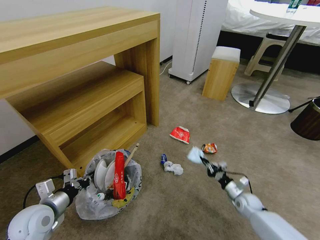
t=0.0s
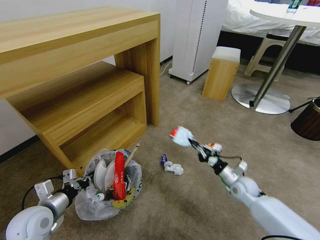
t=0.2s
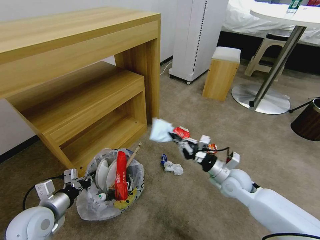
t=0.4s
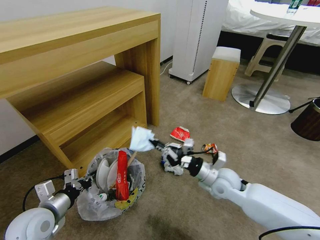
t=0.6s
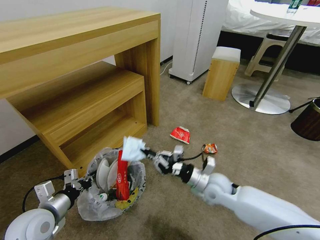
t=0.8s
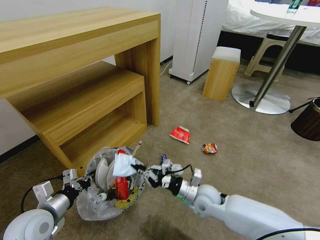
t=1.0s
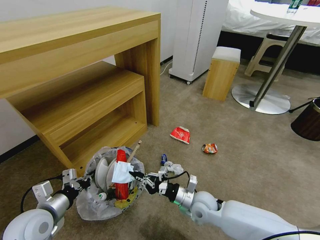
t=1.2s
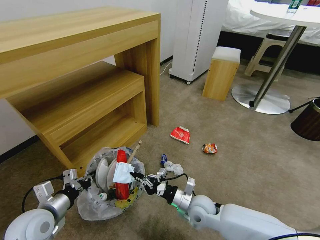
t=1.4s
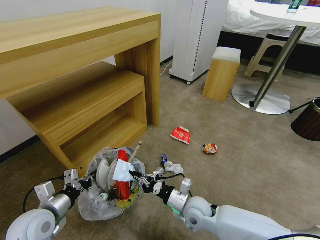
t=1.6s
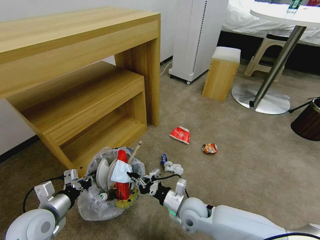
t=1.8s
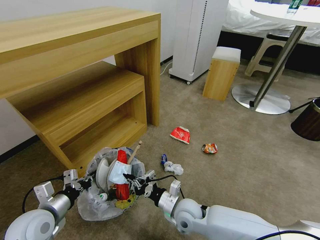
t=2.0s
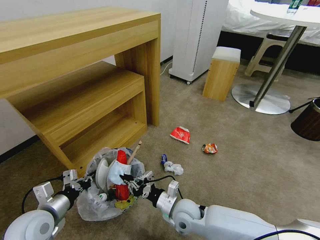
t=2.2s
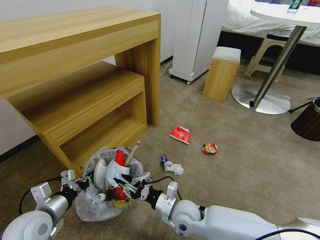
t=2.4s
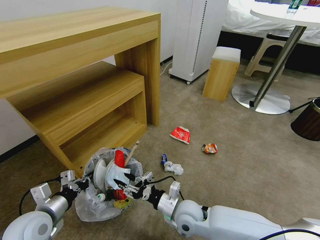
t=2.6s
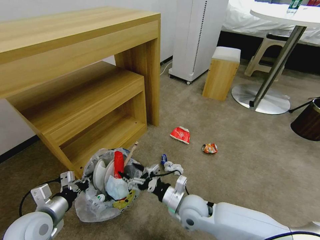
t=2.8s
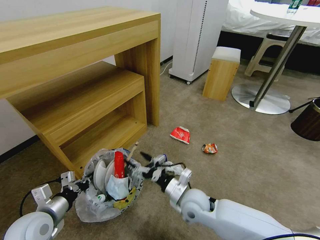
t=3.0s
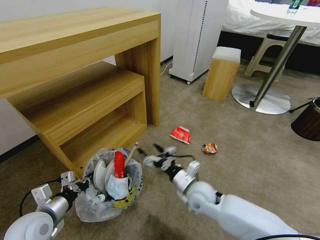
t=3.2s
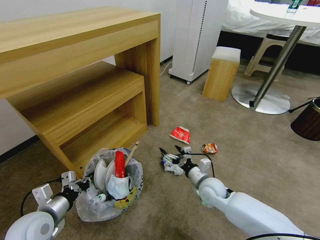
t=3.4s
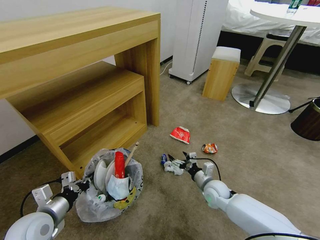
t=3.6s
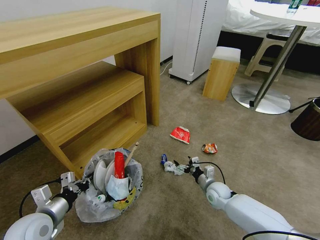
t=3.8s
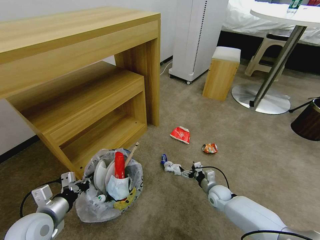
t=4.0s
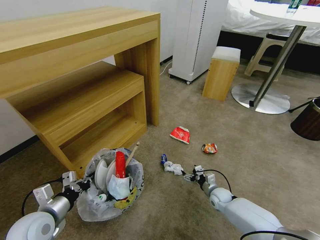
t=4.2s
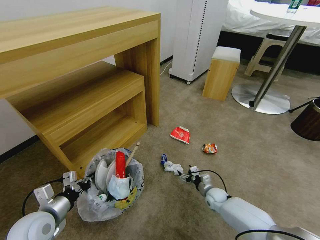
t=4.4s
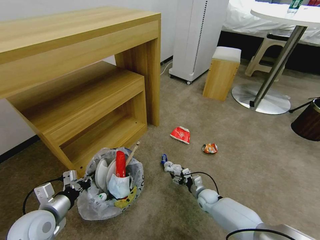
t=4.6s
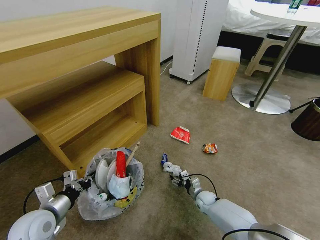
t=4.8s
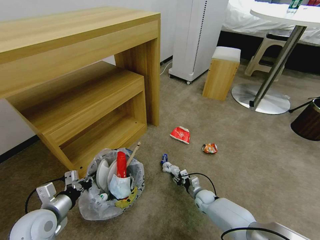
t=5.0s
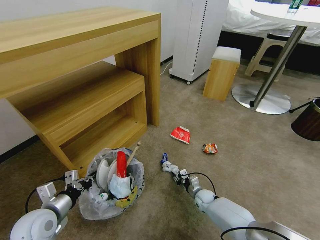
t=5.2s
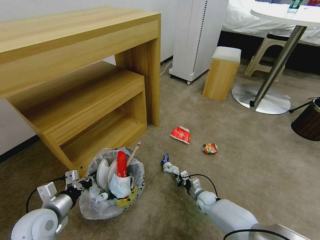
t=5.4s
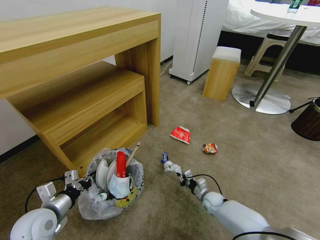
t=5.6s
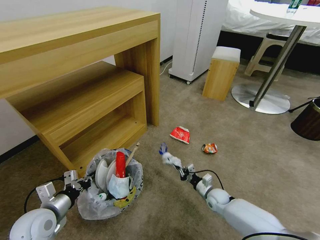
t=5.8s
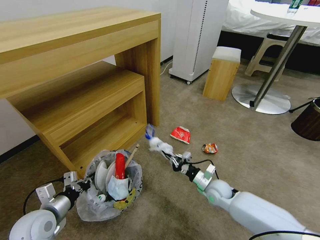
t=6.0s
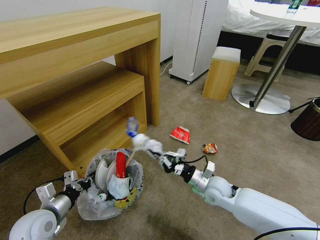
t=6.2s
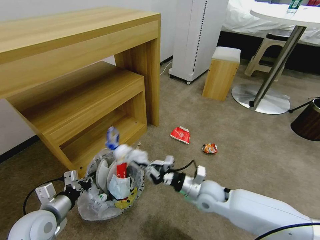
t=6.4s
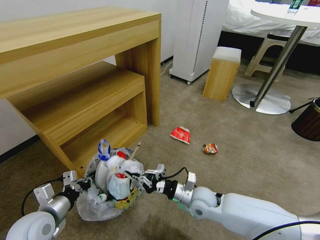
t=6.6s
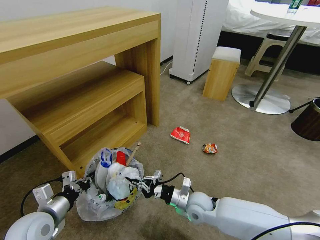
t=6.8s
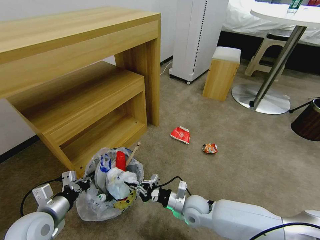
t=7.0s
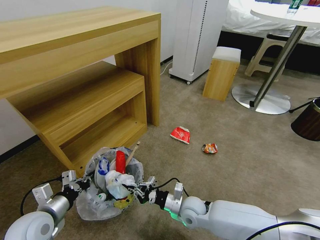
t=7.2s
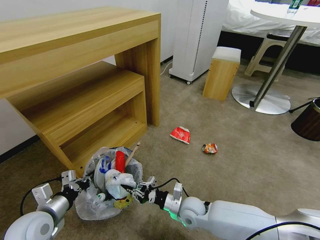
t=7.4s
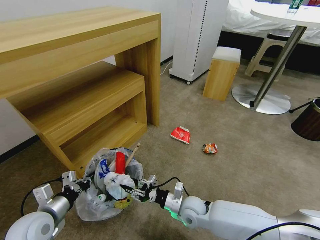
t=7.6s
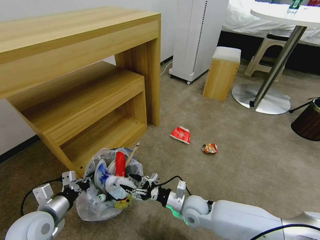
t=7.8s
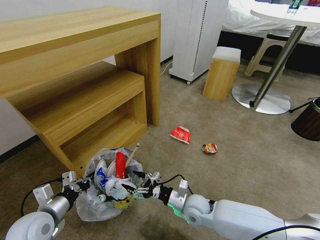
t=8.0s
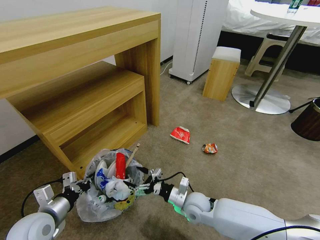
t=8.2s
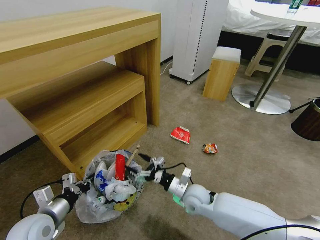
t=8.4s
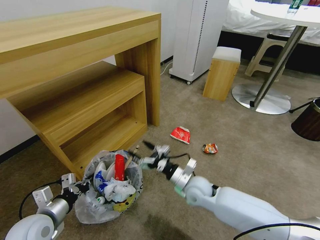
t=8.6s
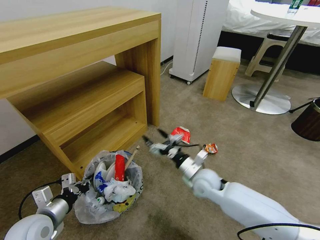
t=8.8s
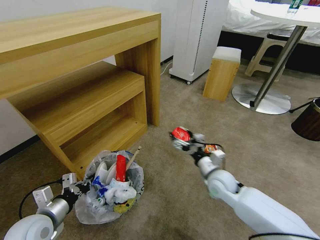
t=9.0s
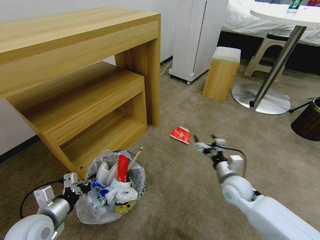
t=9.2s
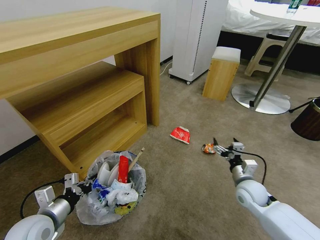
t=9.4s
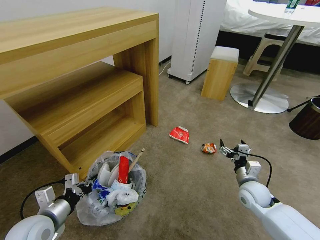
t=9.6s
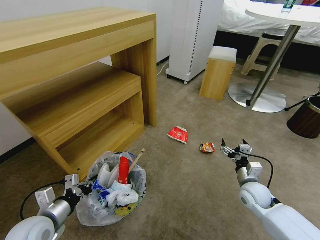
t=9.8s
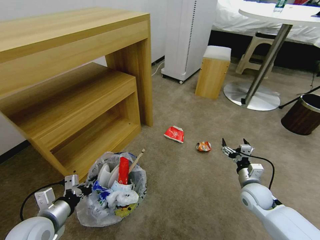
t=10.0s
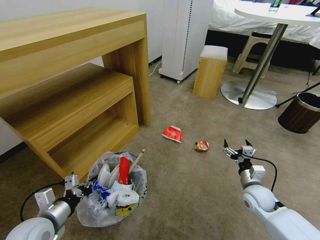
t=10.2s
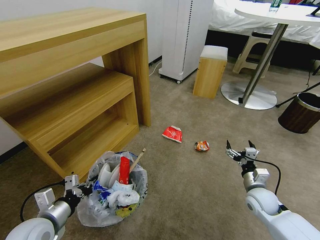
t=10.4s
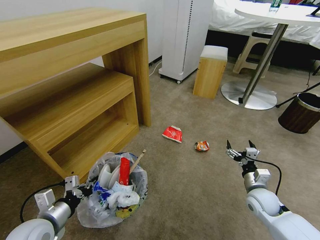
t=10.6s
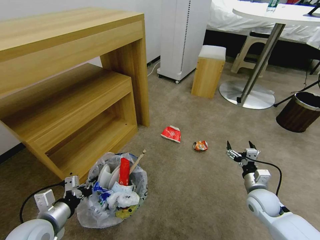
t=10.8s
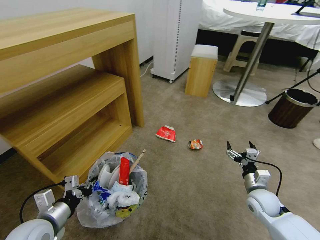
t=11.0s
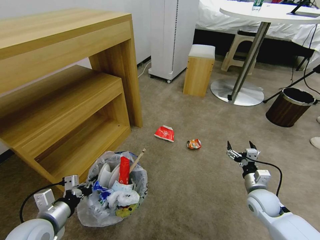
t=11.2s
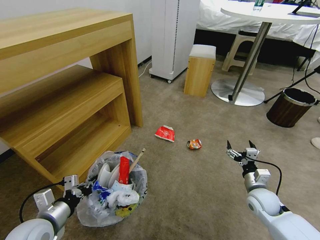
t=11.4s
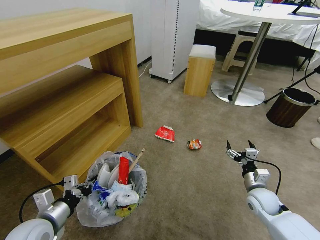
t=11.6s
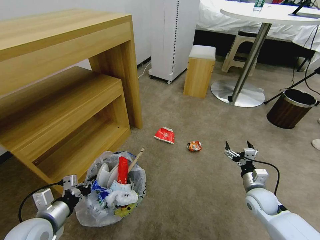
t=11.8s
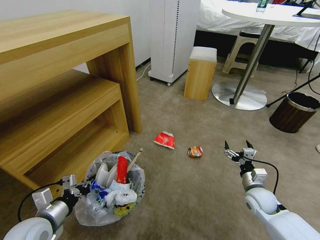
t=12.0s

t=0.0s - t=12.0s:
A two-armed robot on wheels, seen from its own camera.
Task of the whole recording: Pick up the trash bin and place the garbage on the floor into it.
t=0.0s - t=1.6s: The right gripper shifts about 25 cm to the left and upward.
t=1.6s - t=3.0s: The right gripper opens.
t=3.0s - t=4.4s: The right gripper goes approximately 25 cm downward, to the right and forward.
t=4.4s - t=6.0s: The right gripper shifts some 15 cm upward, and closes.
t=6.0s - t=7.6s: The right gripper shifts some 15 cm to the left and backward, and opens its fingers.
t=7.6s - t=9.0s: The right gripper is displaced to the right, upward and forward by some 15 cm, and opens up.
t=9.0s - t=10.4s: The right gripper heads to the right, covering some 15 cm.

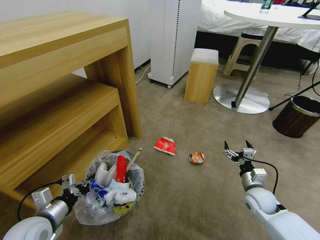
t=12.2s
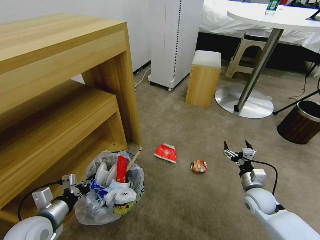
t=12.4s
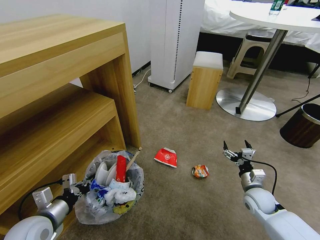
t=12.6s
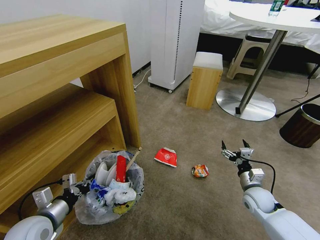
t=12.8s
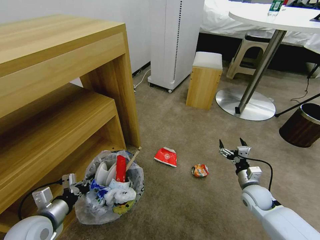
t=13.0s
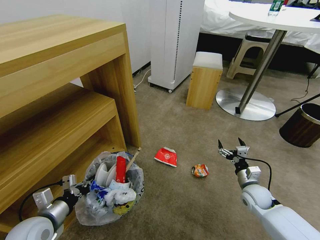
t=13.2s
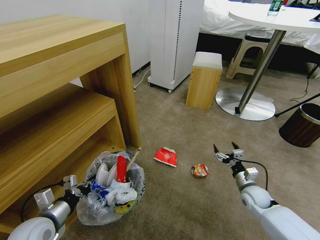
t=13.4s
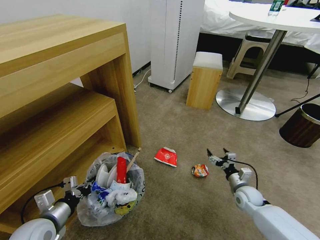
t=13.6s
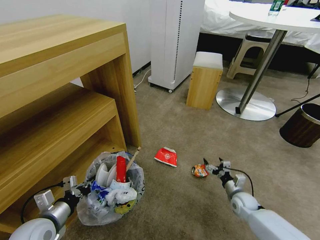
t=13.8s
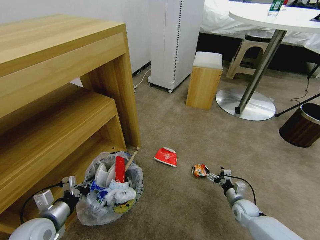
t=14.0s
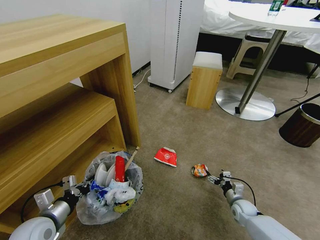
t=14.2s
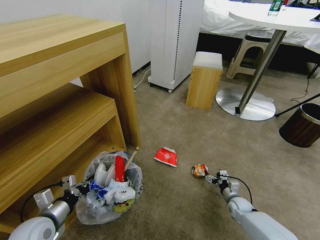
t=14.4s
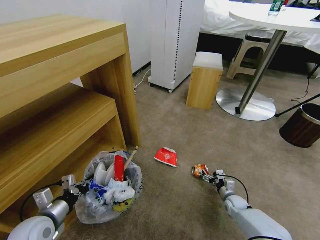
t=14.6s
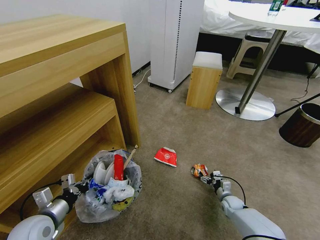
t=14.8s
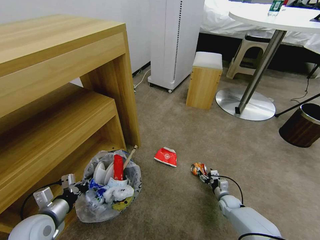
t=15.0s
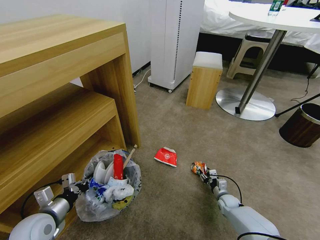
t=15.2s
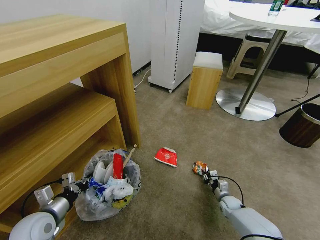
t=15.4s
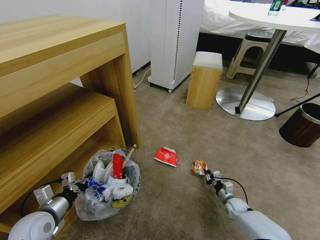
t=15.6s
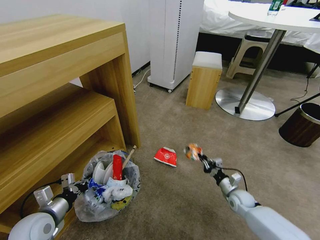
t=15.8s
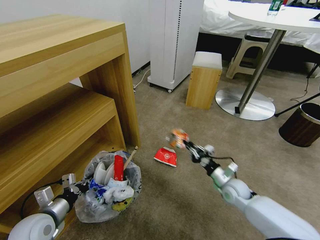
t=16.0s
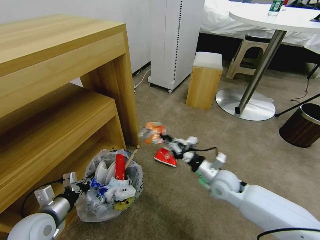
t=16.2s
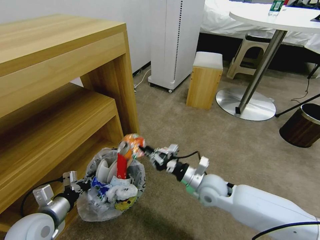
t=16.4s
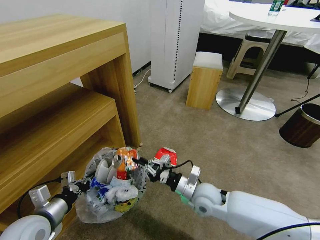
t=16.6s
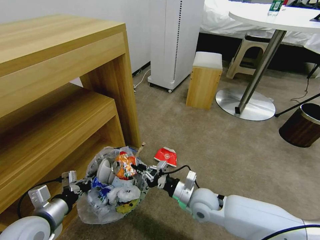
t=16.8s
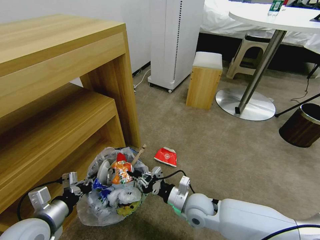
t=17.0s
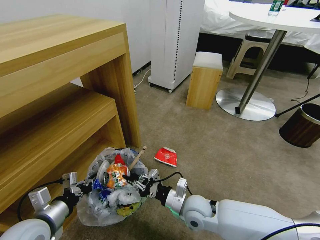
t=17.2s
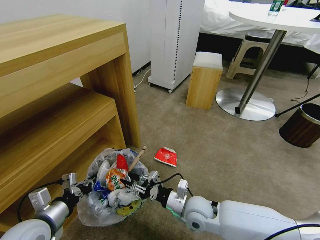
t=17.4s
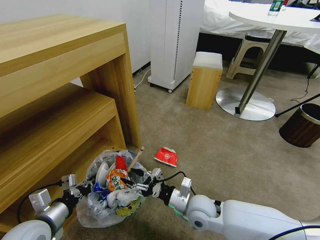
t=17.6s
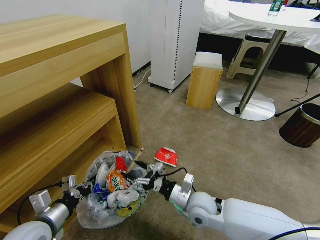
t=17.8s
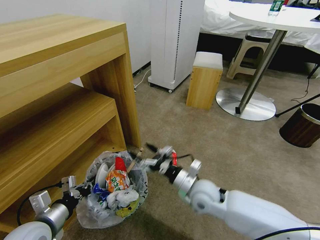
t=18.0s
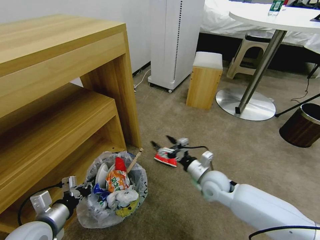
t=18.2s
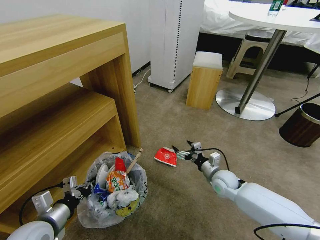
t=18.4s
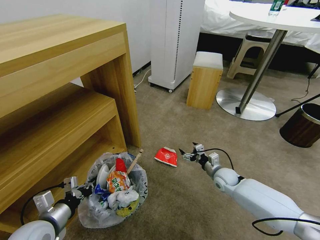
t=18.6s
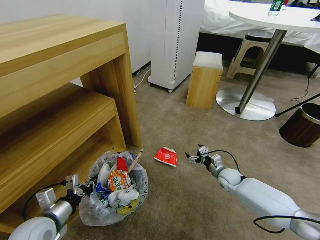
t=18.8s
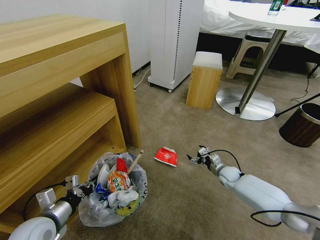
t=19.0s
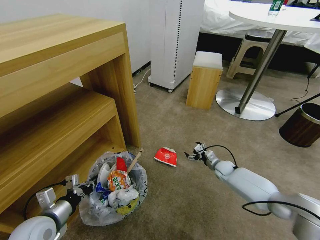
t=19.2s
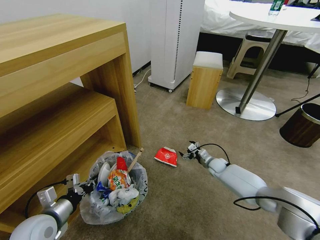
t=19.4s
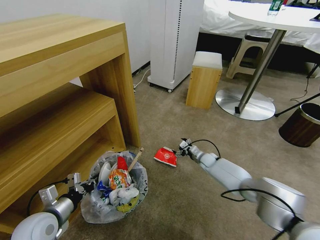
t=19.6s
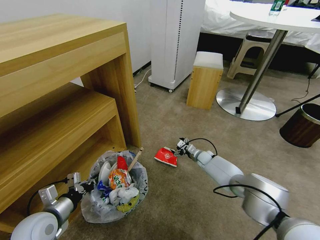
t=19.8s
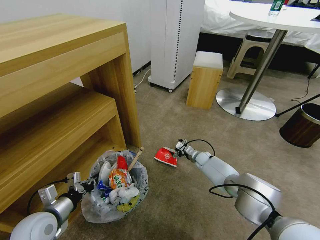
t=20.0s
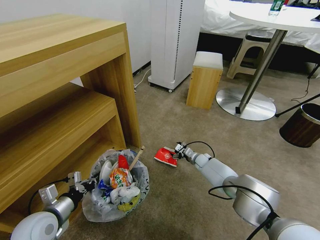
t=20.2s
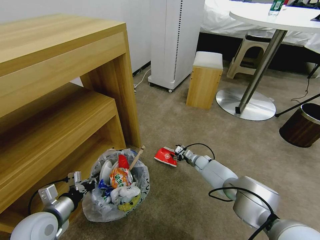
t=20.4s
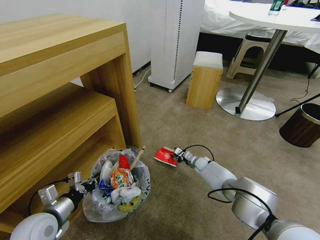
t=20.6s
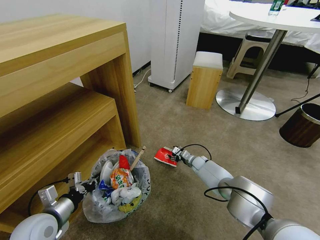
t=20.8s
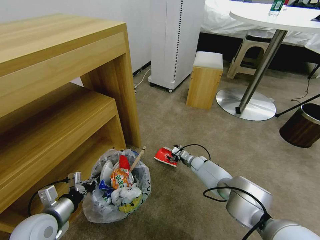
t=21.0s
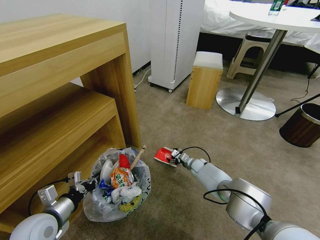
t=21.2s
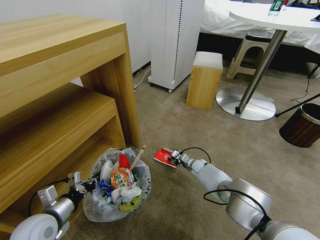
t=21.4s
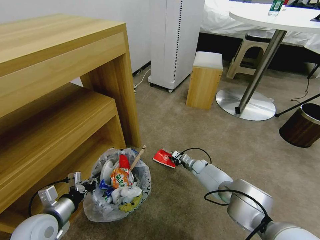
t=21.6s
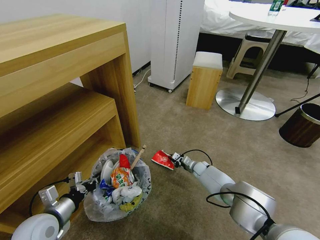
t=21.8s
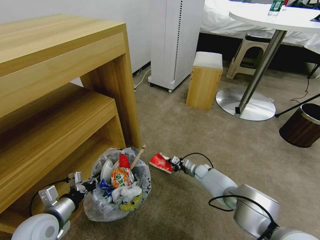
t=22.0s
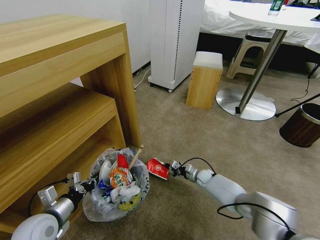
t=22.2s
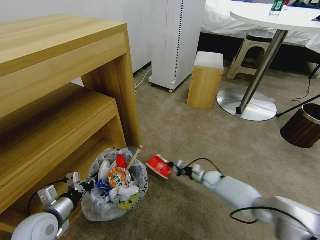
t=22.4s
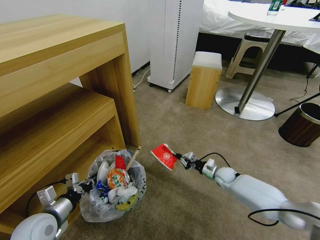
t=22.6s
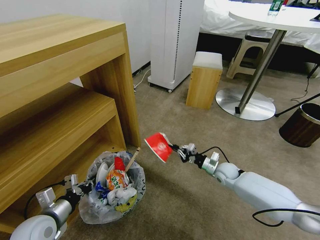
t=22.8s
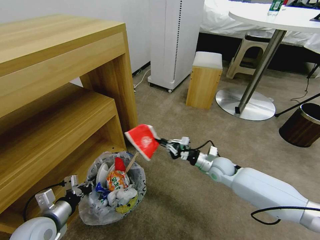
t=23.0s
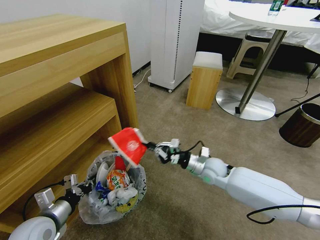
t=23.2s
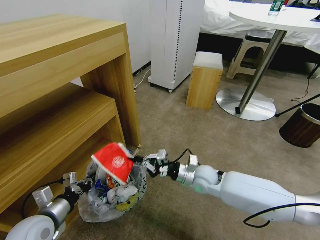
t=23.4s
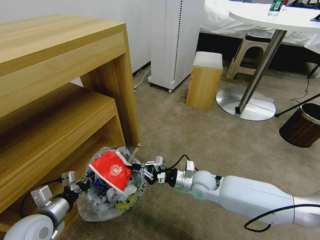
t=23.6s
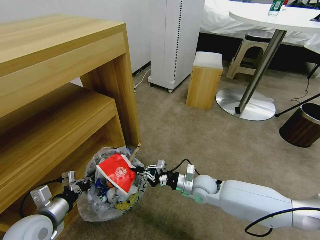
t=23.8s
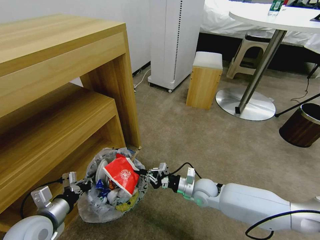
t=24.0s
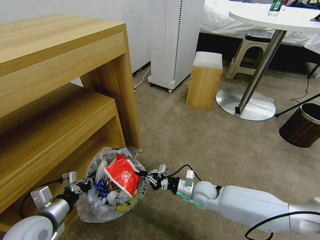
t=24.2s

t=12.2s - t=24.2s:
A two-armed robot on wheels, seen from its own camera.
Task of the whole recording: Pick up the trash bin and place the garbage on the floor into it.
t=12.2s - t=13.8s: The right gripper heads downward, covering roughly 10 cm.
t=13.8s - t=15.2s: The right gripper shifts roughly 10 cm downward, and closes.
t=15.2s - t=16.6s: The left gripper ends up some 5 cm from where it was, while the right gripper moves upward and to the left, about 30 cm, and closes its fingers.
t=16.6s - t=18.2s: The right gripper changes place by roughly 5 cm, and opens up.
t=18.2s - t=19.8s: The right gripper travels forward and downward by some 25 cm.
t=19.8s - t=21.2s: The right gripper ends up roughly 5 cm from where it was.
t=21.2s - t=22.6s: The right gripper shifts roughly 10 cm to the right and backward, and closes up.
t=22.6s - t=24.2s: The right gripper moves to the left, backward and upward, approximately 20 cm.
